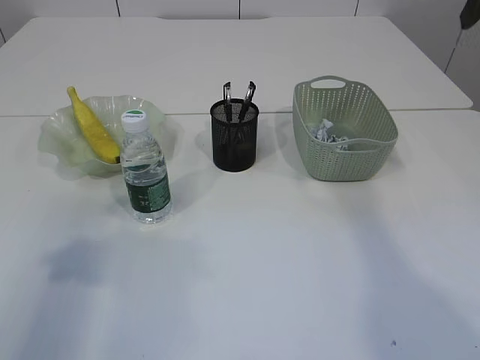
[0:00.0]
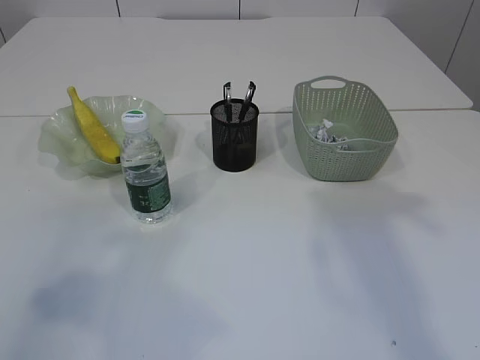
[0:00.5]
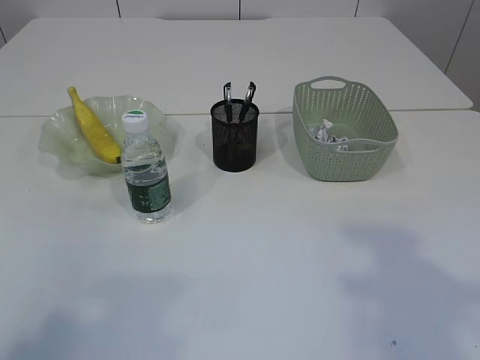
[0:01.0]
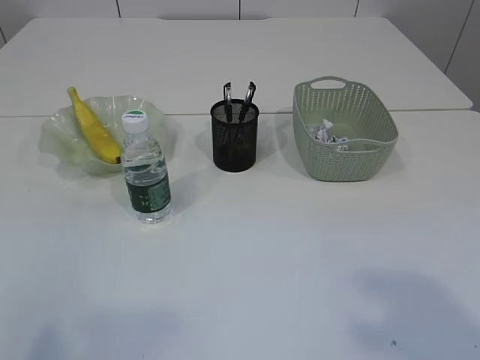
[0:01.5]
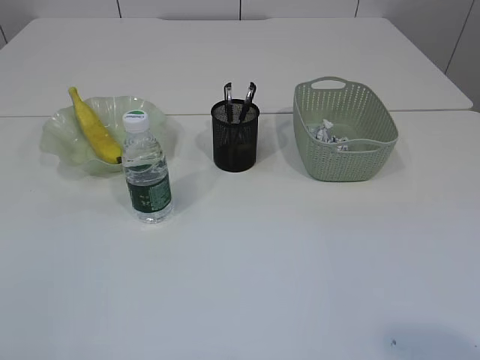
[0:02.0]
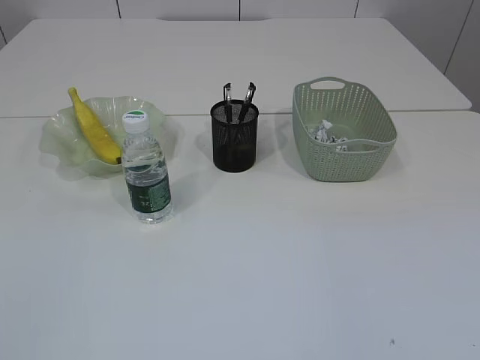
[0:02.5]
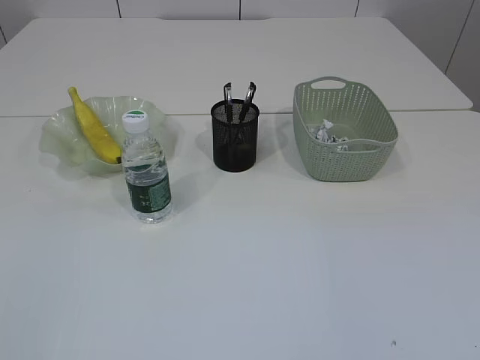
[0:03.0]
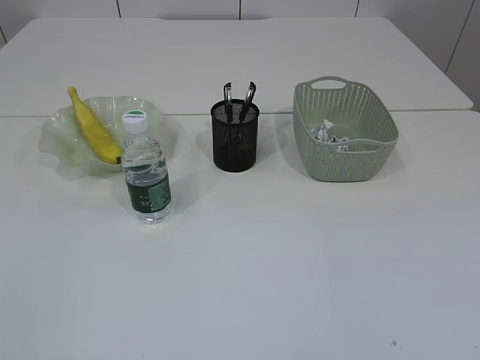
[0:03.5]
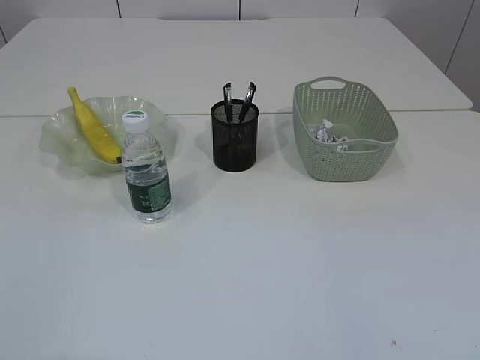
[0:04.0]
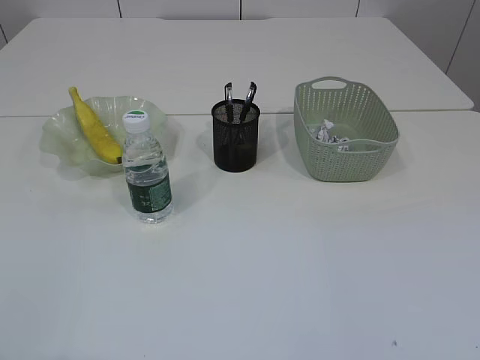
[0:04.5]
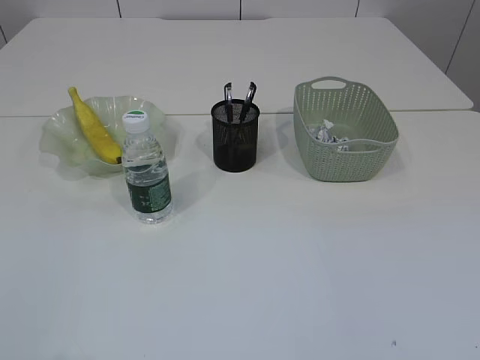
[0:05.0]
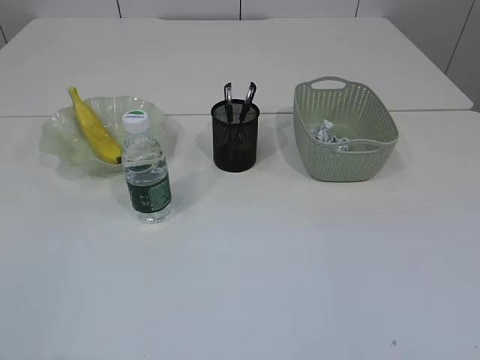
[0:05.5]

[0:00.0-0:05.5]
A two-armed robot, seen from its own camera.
0:00.0 to 0:02.0: The left gripper goes some 20 cm backward.
0:03.5 to 0:05.5: Neither gripper changes place.
